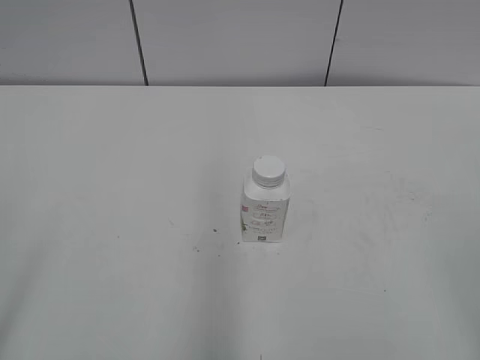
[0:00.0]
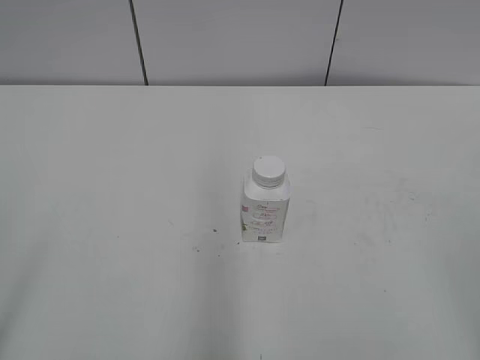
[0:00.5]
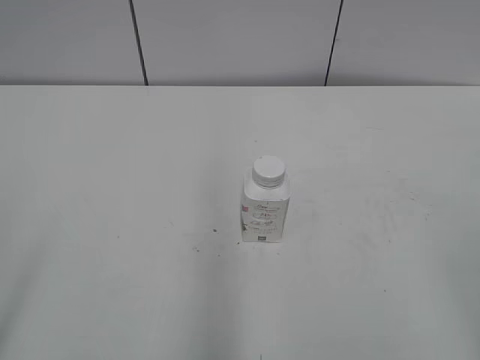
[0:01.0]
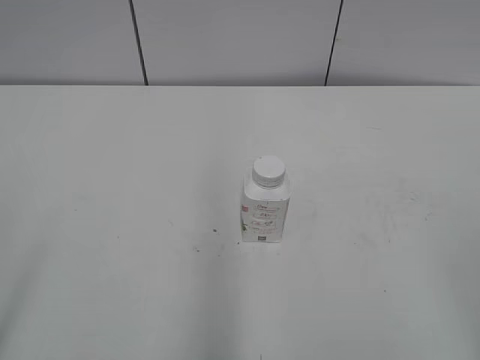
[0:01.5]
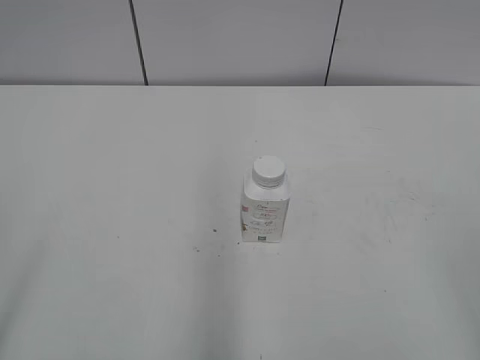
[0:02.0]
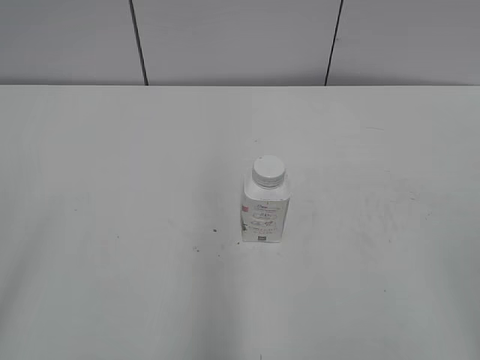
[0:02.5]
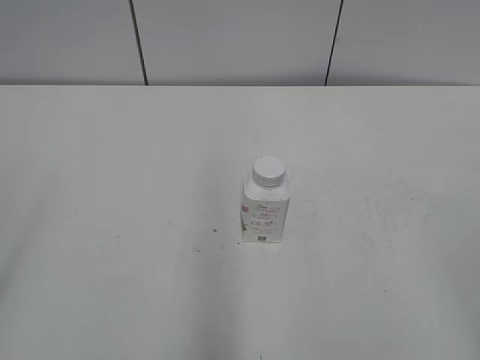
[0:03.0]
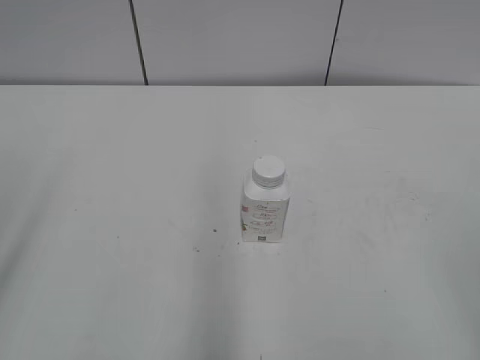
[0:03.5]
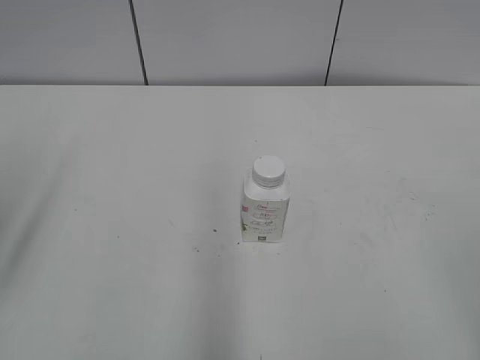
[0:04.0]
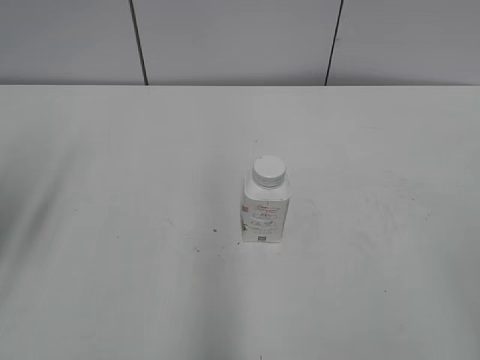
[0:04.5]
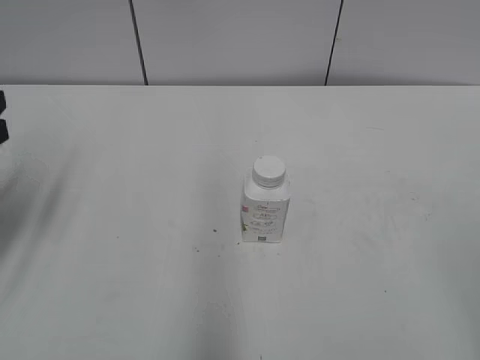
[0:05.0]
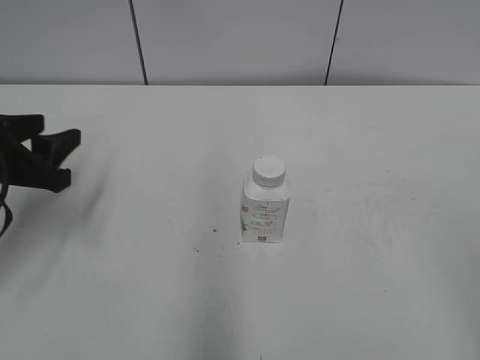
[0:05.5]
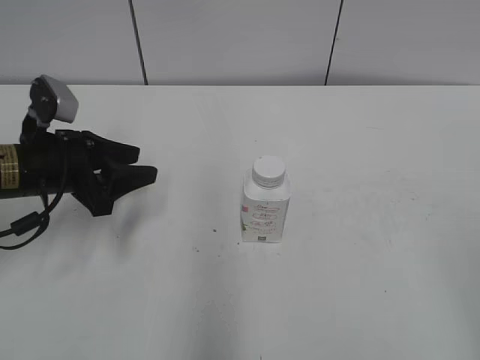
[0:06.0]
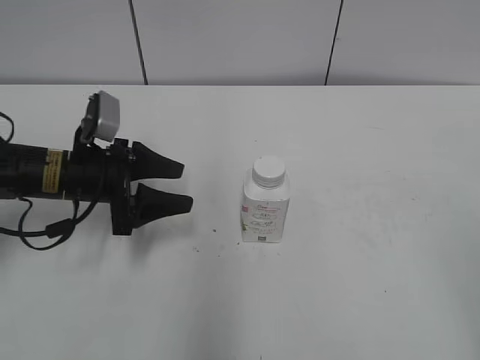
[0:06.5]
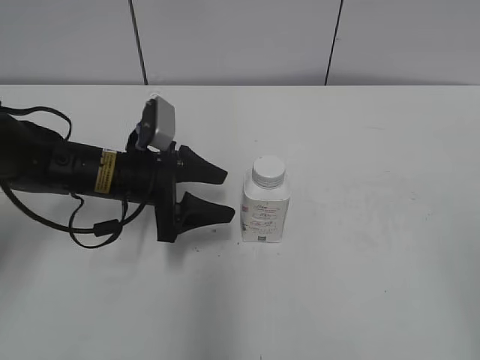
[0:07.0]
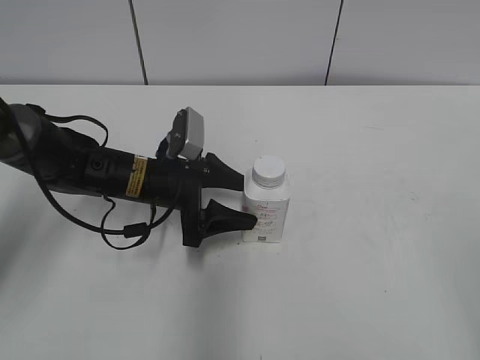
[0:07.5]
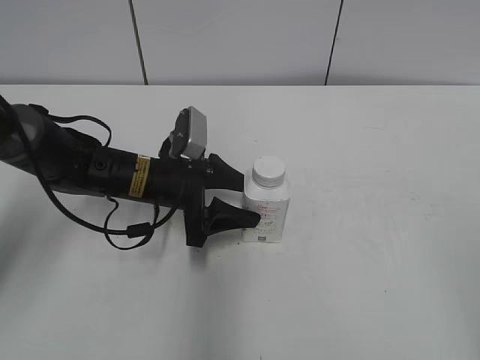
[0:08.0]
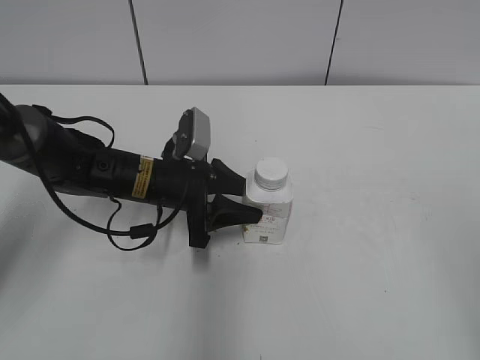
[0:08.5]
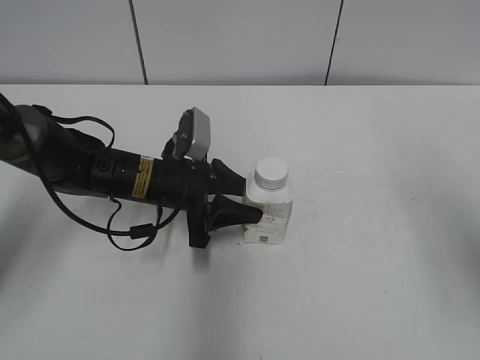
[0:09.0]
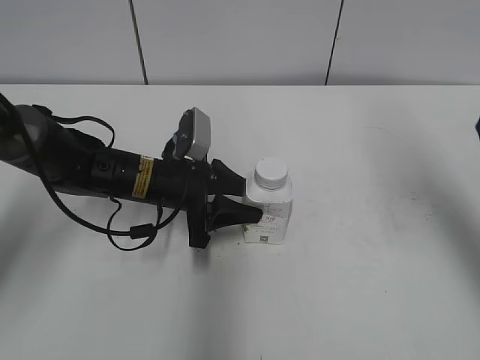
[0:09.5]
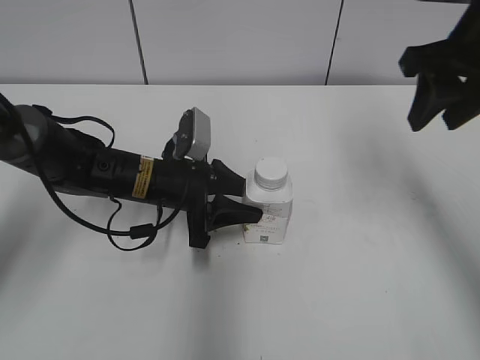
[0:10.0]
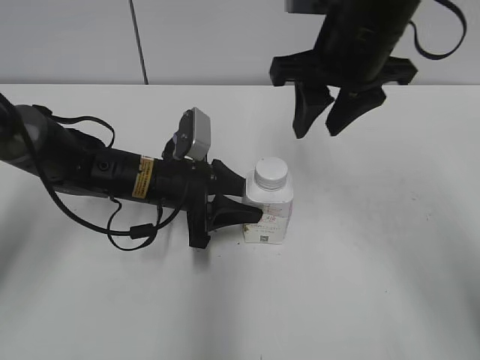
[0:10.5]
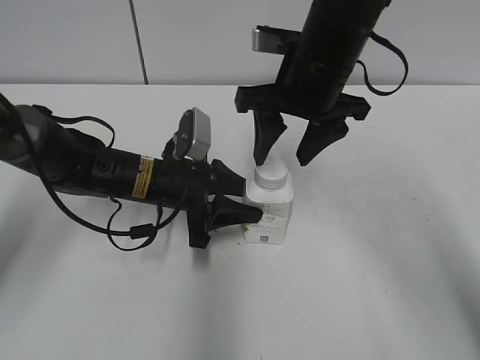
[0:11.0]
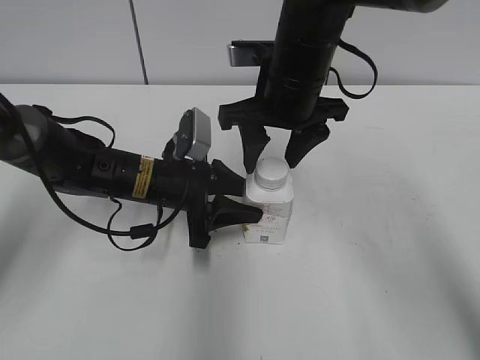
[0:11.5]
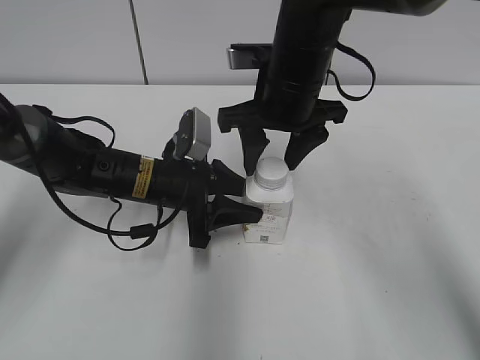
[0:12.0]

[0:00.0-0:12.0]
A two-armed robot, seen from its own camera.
Step, 0.0 to 8.5 s: Grasp the bottle and move it to the center of the table with the left gripper.
4.0 to 6.0 s: The left gripper heads forward, downward and to the right, covering approximately 25 cm, and closes its fingers.
6.0 to 8.0 s: The left gripper heads to the right and downward, covering approximately 15 cm.
8.0 to 10.0 s: The left gripper closes its fingers; the right gripper shifts approximately 30 cm forward, and closes up.
10.0 to 12.0 s: The right gripper goes about 20 cm to the left and downward, and opens.

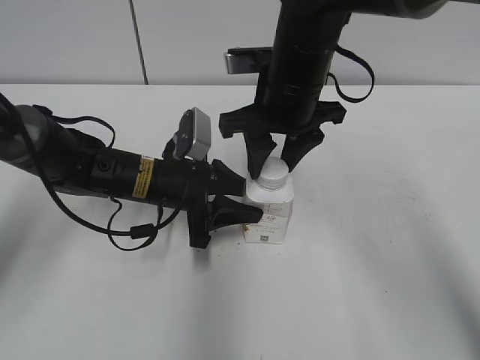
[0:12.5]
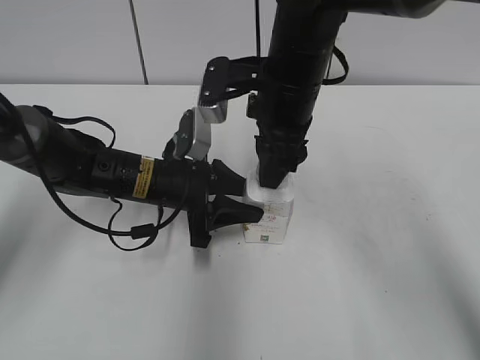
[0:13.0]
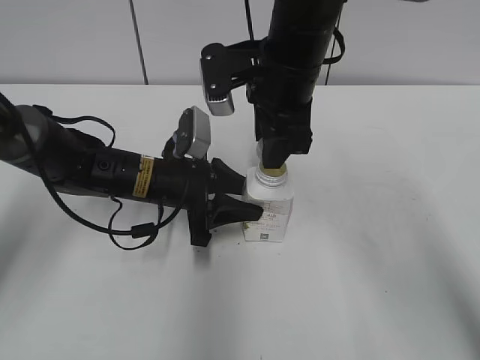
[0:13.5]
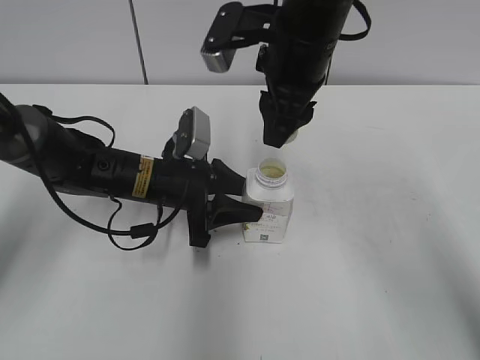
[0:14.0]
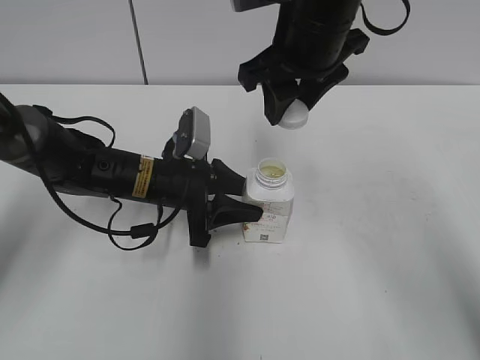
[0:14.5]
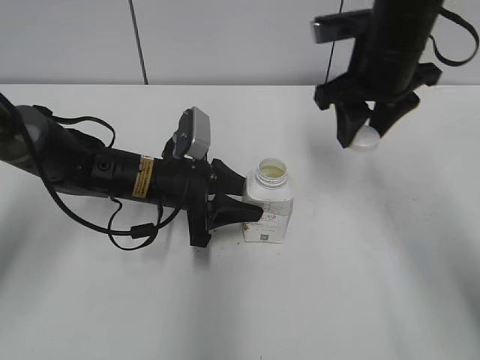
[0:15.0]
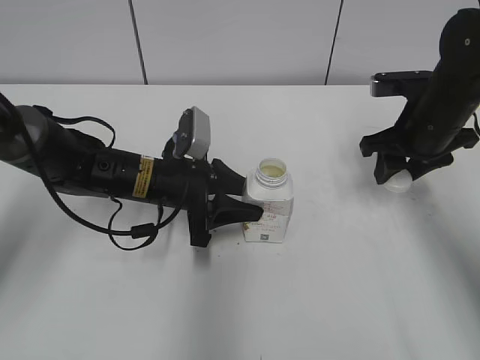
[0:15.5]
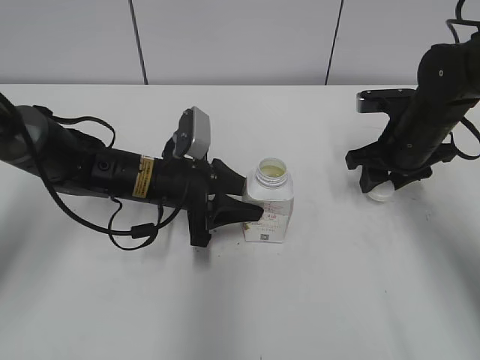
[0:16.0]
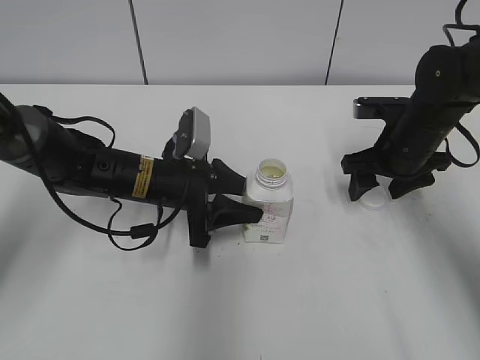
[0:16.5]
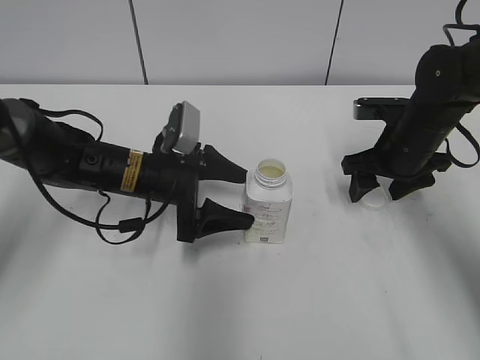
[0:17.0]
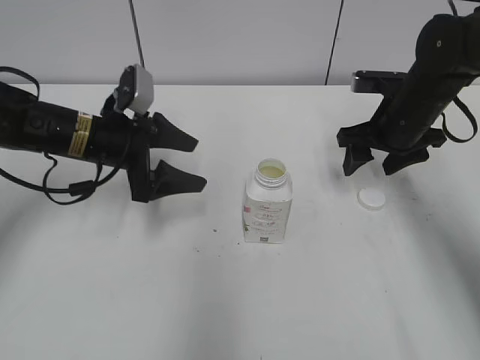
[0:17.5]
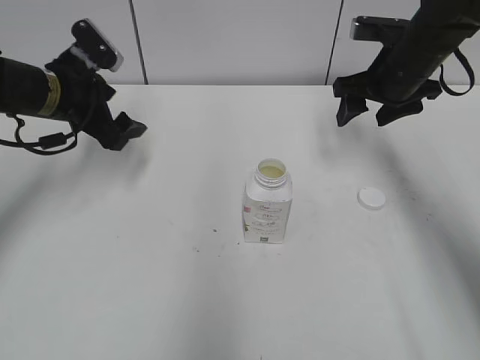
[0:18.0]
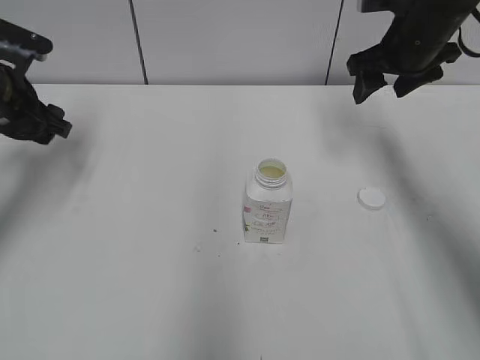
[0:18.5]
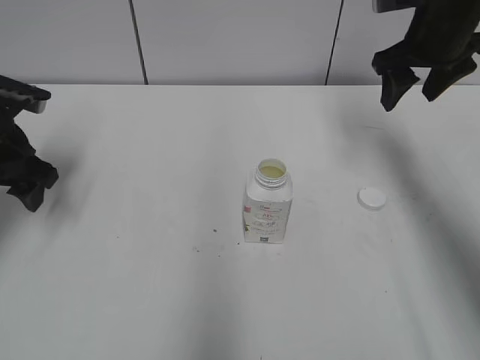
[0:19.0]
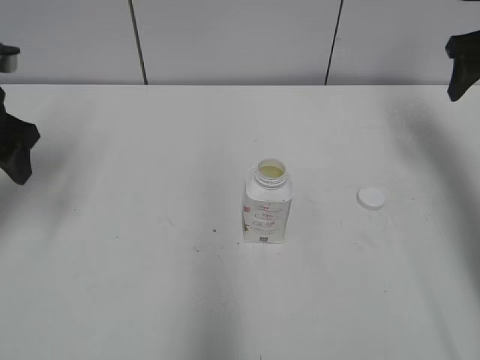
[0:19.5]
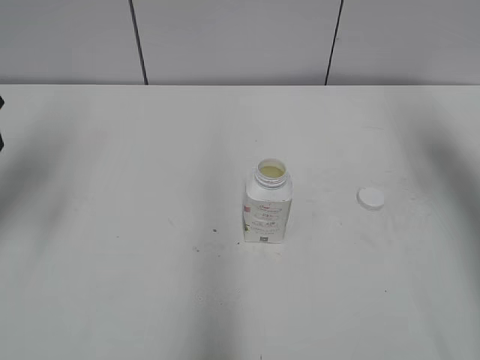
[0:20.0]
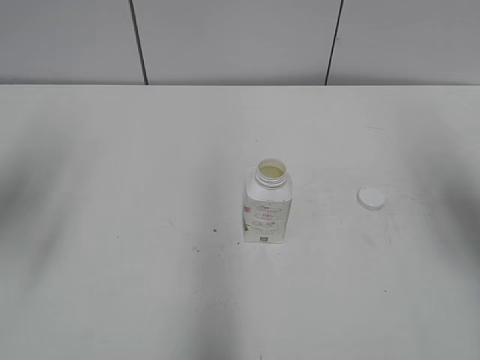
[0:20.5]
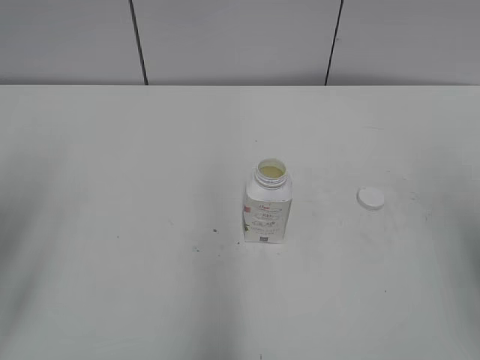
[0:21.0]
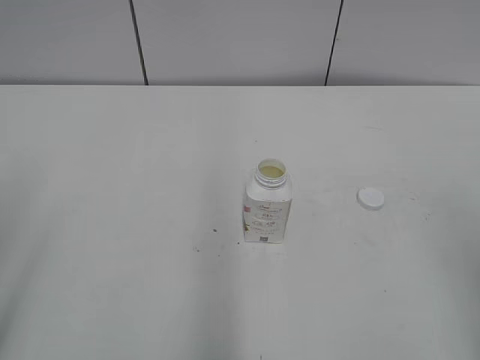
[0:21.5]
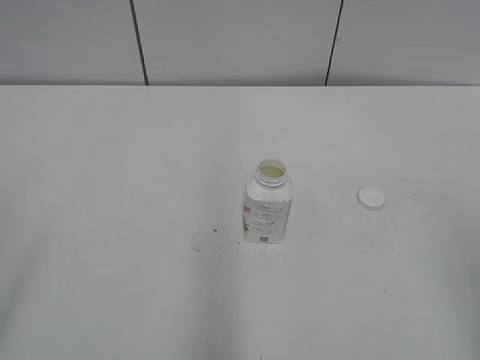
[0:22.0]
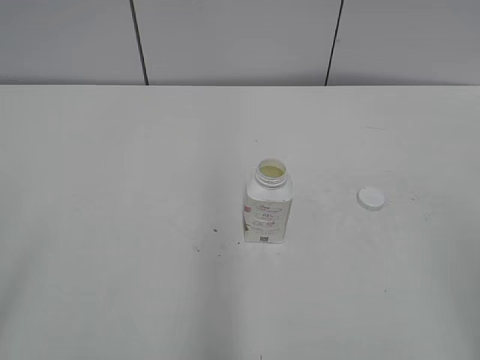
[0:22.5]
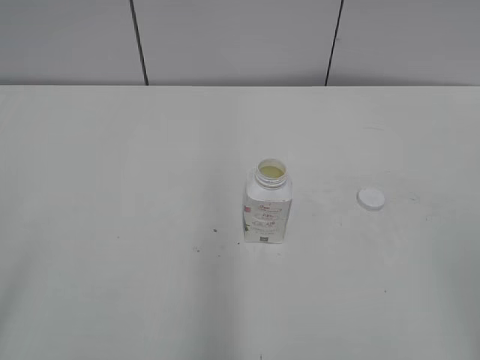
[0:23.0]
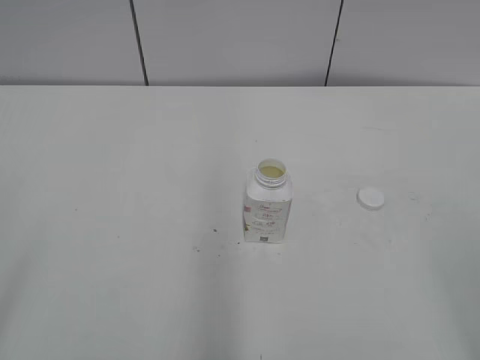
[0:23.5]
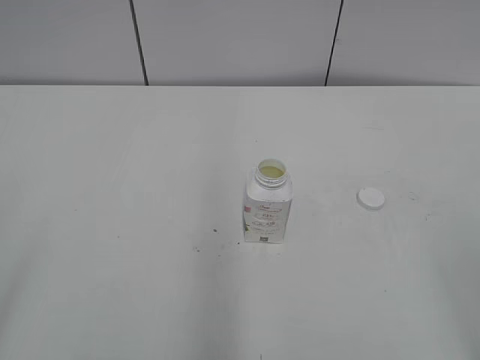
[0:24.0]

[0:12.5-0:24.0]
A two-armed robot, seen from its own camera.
Step, 14.5 to 16.0 s: Place the bottle cap on the table with the right gripper.
Step, 16.5 to 17.0 s: Place the bottle on the table with the left gripper.
12.5 to 14.5 s: The right gripper is displaced upward by approximately 5 cm.
14.5 to 16.5 s: The right gripper goes roughly 20 cm downward and to the right, and opens up.
16.5 to 18.5 s: The right gripper moves upward and forward, roughly 15 cm. The left gripper shifts approximately 20 cm to the left and upward, and opens up.
18.5 to 20.0 s: The left gripper heads upward and backward, covering roughly 15 cm; the right gripper travels to the right, backward and upward by some 15 cm.
20.0 to 22.0 s: The two grippers go roughly 30 cm backward.

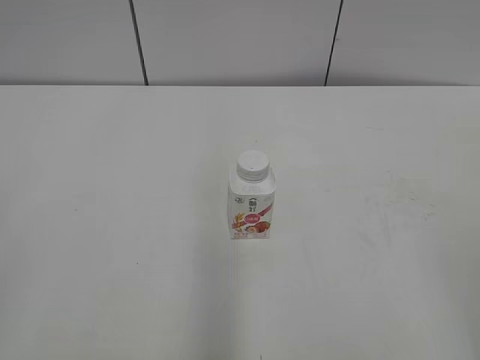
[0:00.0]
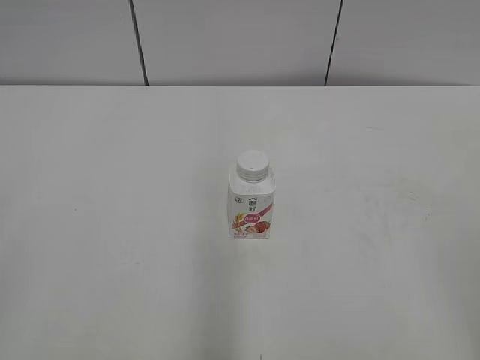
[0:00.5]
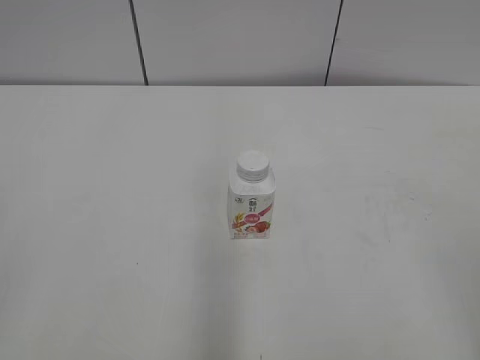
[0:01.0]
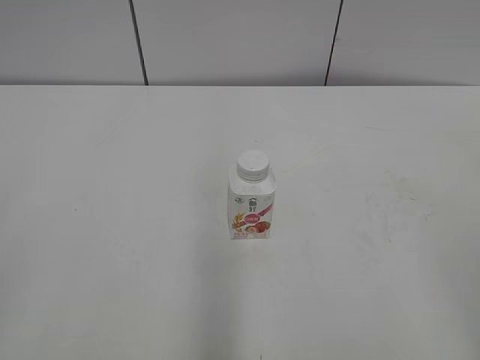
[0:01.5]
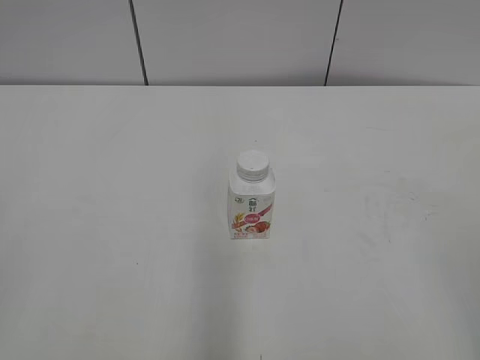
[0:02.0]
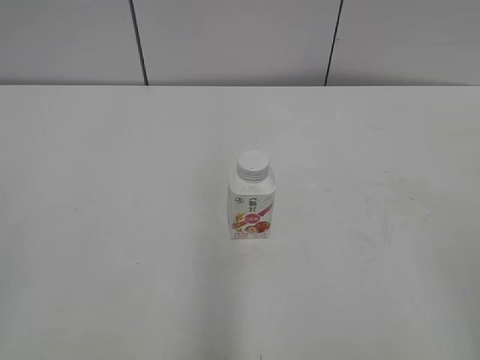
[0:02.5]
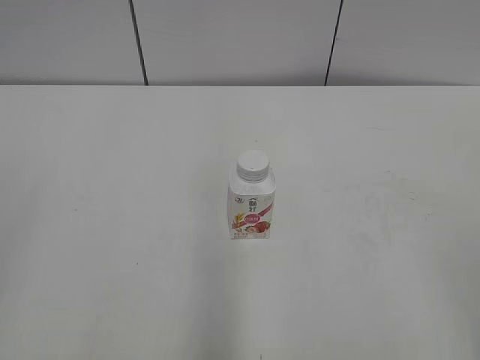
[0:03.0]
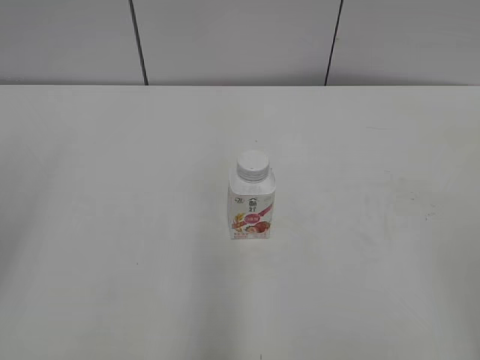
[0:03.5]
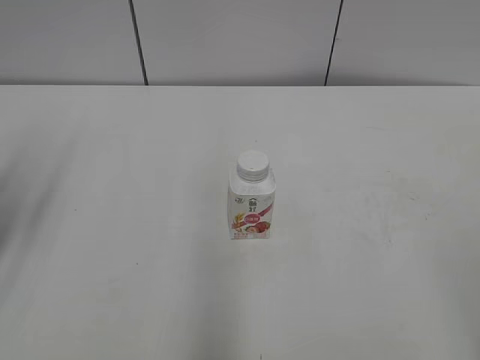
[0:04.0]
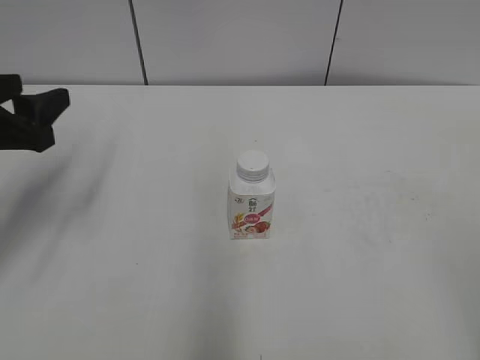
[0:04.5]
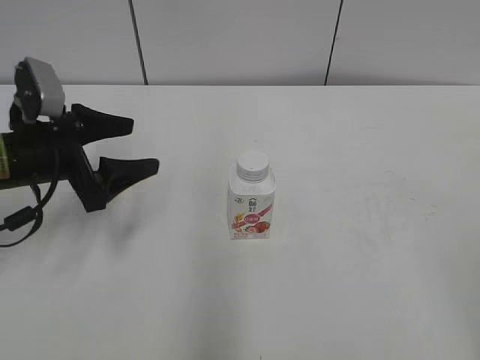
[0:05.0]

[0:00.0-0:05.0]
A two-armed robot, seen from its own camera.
2.5 to 5.0 s: The left gripper goes some 35 cm forward and downward, and opens up.
